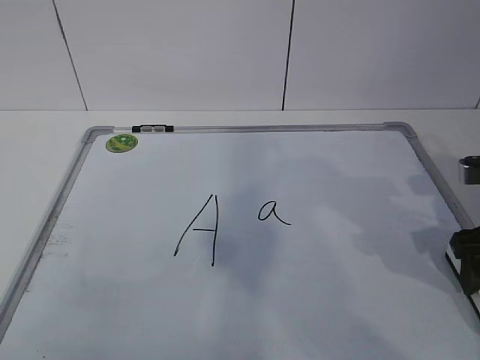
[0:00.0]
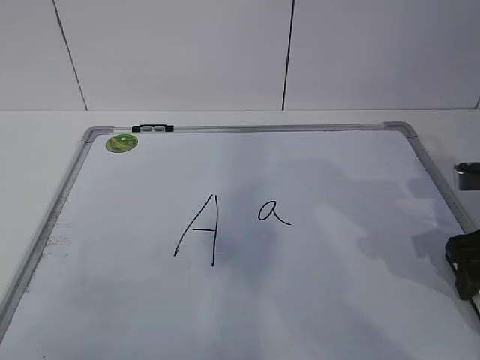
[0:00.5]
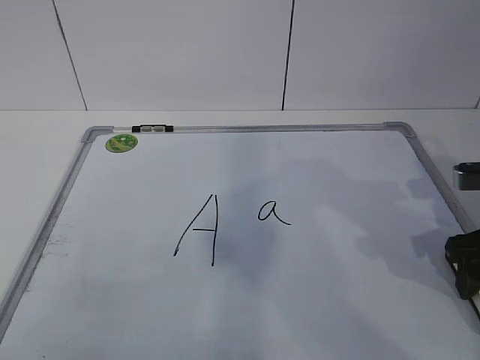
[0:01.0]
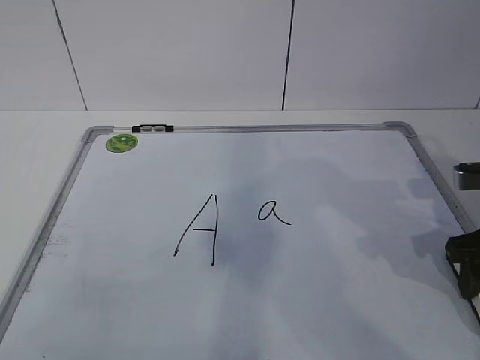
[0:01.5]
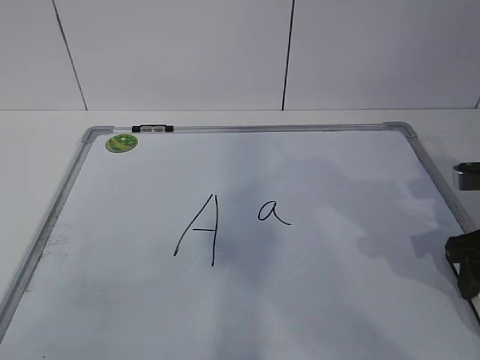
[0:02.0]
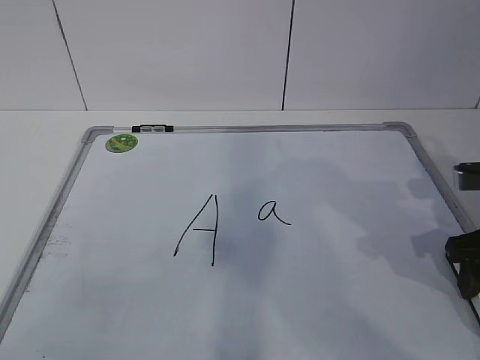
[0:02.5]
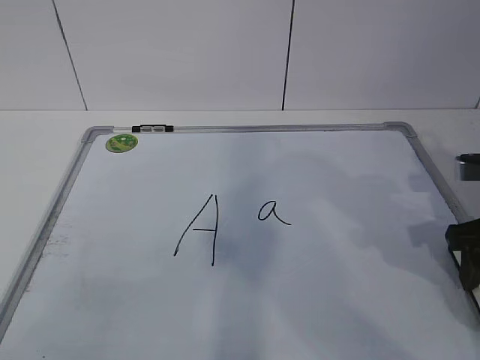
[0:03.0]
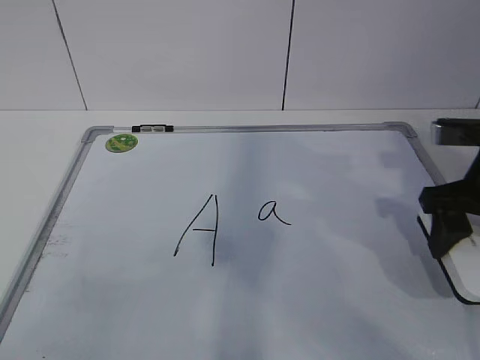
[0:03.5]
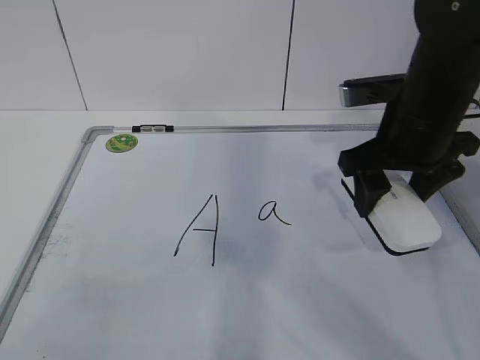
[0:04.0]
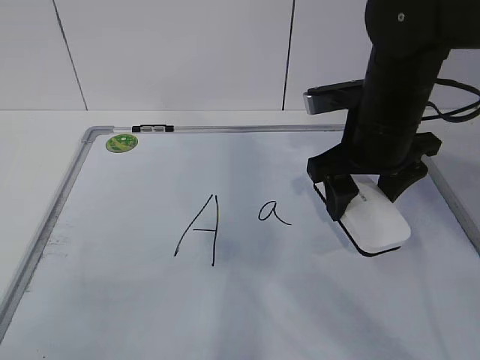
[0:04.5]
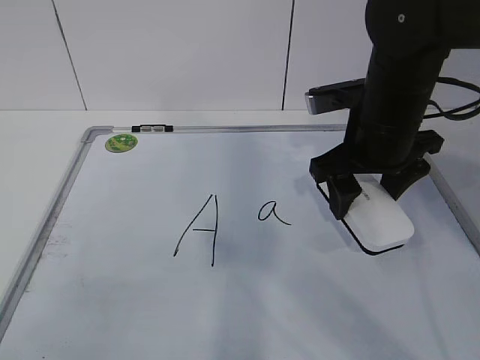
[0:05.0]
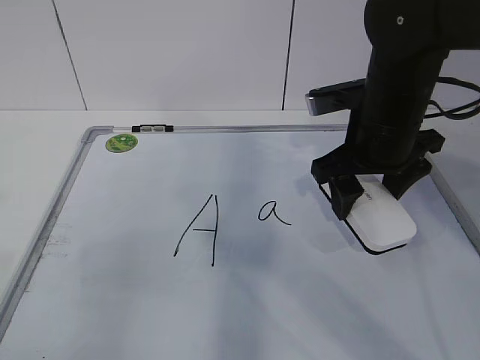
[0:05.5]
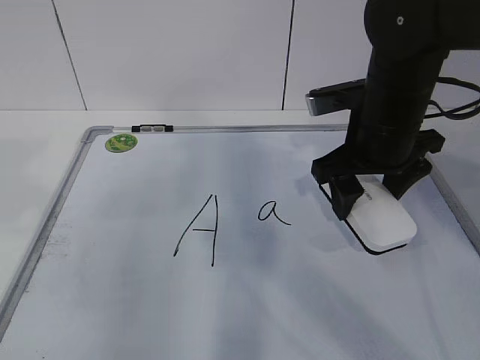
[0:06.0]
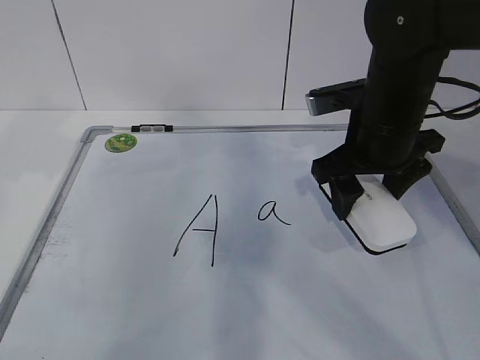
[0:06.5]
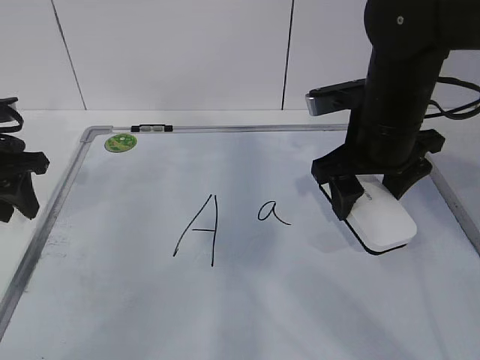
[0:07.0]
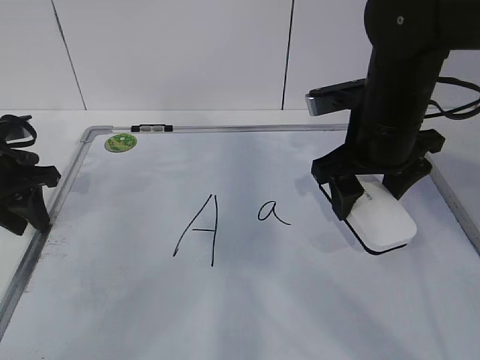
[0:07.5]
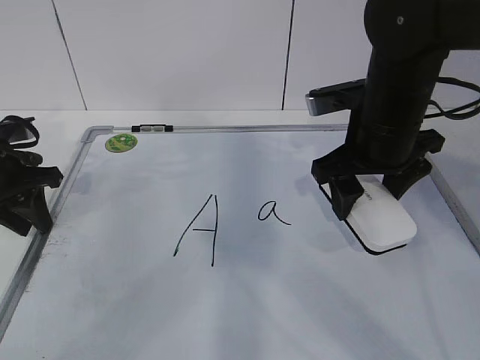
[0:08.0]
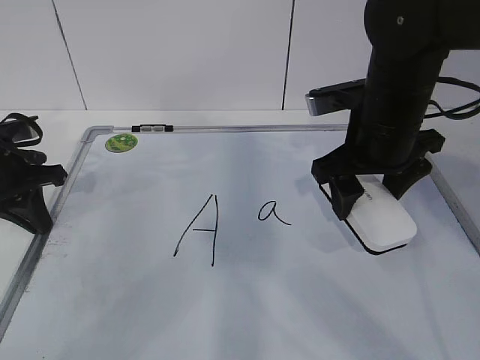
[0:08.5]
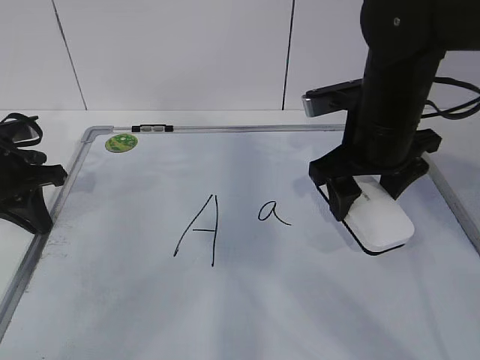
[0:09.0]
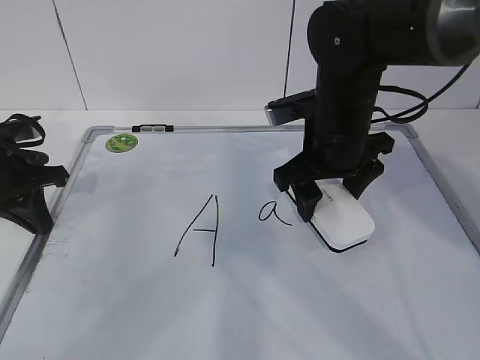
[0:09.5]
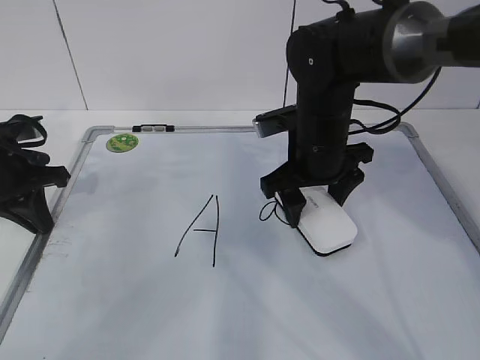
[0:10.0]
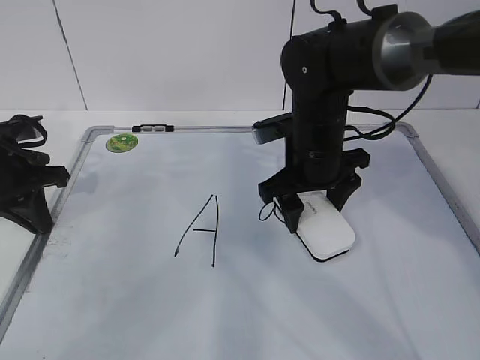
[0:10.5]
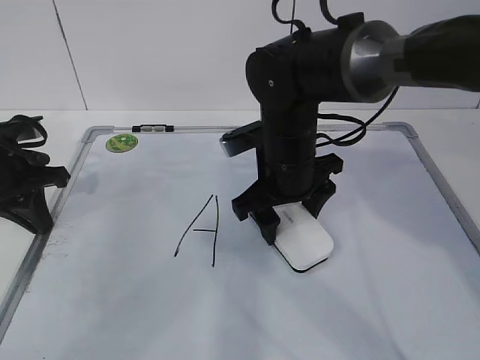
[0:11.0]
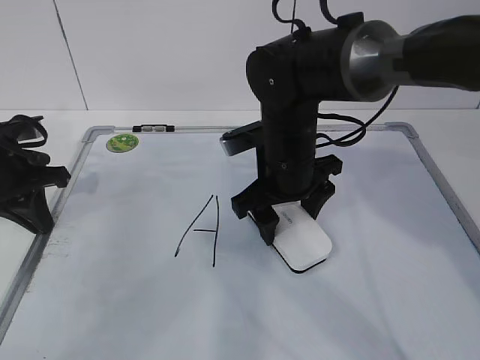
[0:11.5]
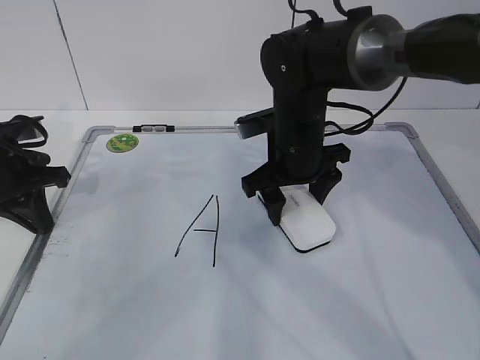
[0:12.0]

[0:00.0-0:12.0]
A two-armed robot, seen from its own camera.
Task of the whole recording: pick up the eraser on the blackboard and erase the letter "a".
Step, 0:00.5 to 0:05.5: Hold the drawing board steady with your left hand.
Step, 0:06.5 to 0:09.5: Erase the letter a with your right hand.
0:02.0 to 0:04.0: The right gripper travels to the left, upward and forward by roughly 15 cm.
0:06.0 to 0:08.0: The left gripper heads forward and downward, covering approximately 25 cm.
0:08.0 to 0:10.0: The left gripper closes up. The right gripper ends up roughly 10 cm from where it was.
0:10.0 to 0:12.0: The grippers stay close to where they were, moving slightly.

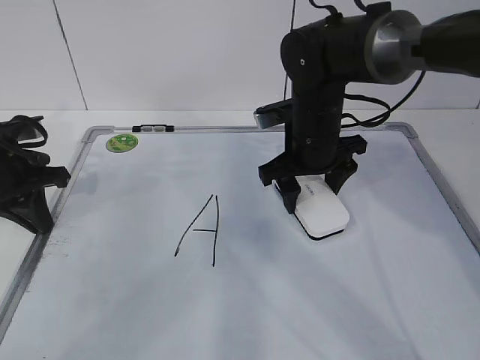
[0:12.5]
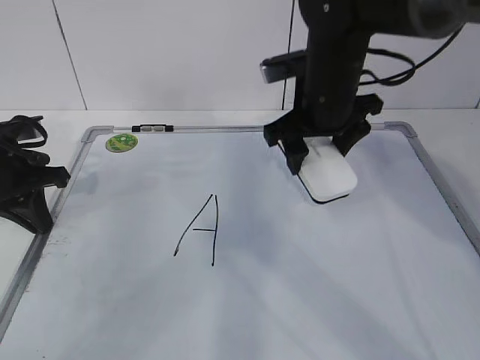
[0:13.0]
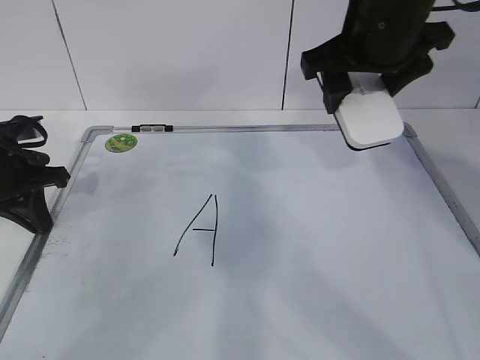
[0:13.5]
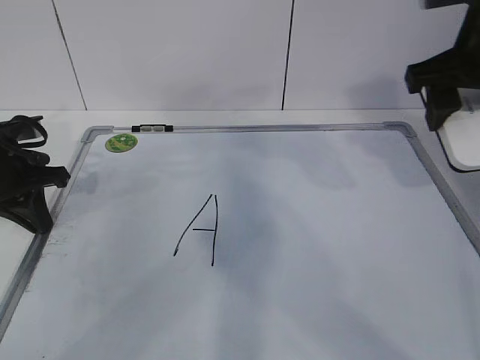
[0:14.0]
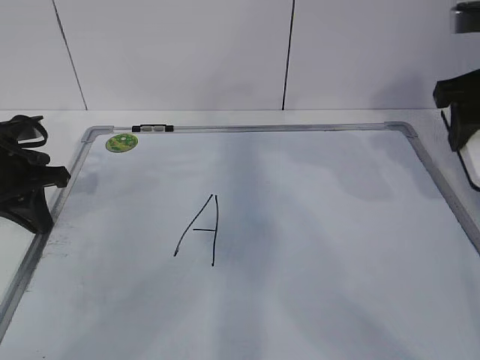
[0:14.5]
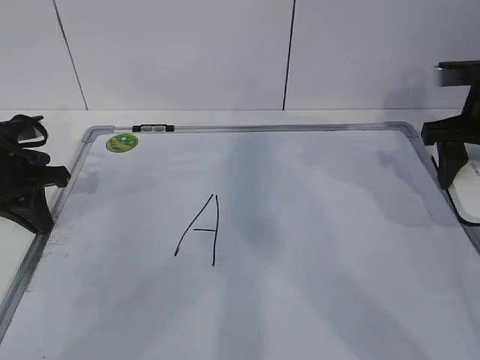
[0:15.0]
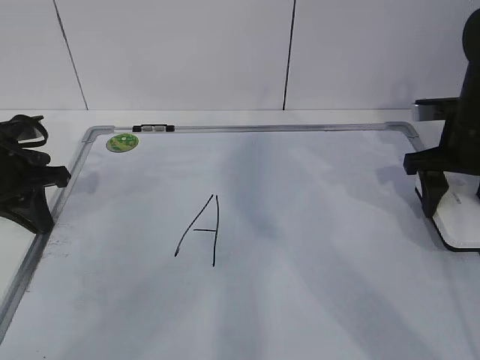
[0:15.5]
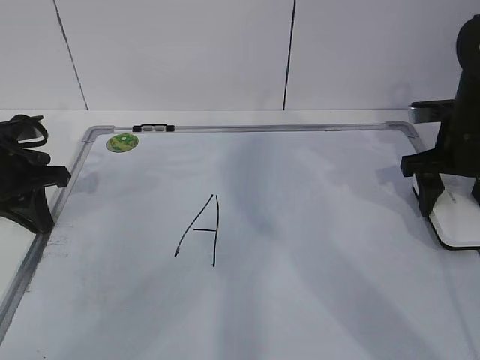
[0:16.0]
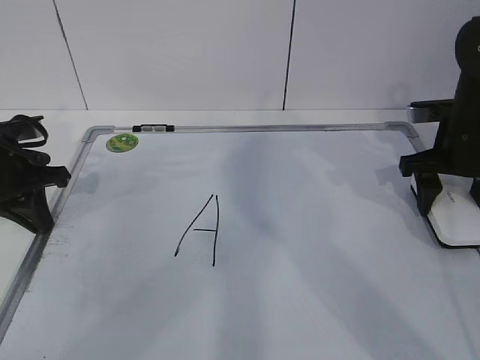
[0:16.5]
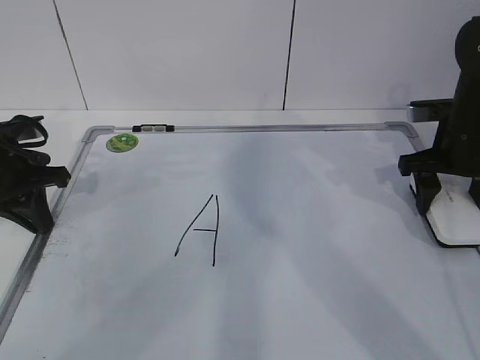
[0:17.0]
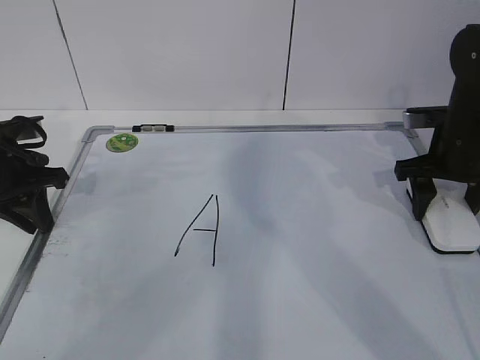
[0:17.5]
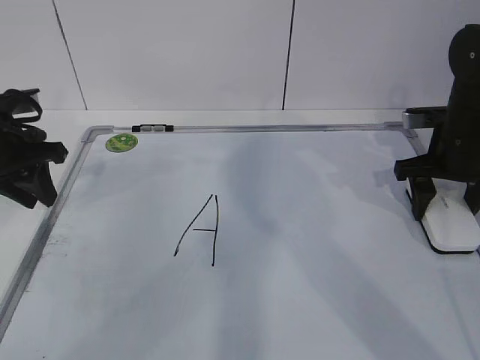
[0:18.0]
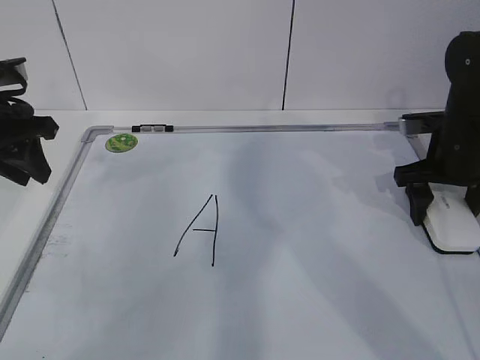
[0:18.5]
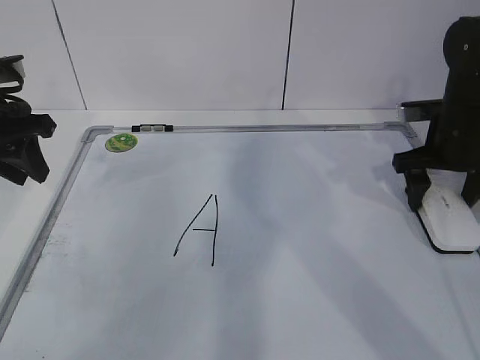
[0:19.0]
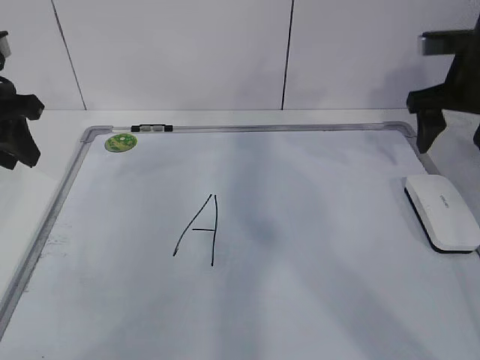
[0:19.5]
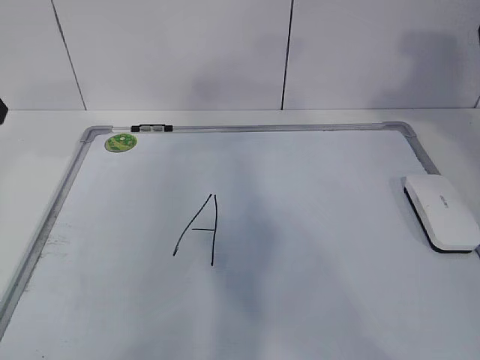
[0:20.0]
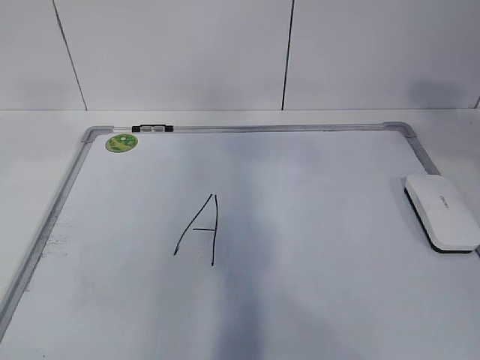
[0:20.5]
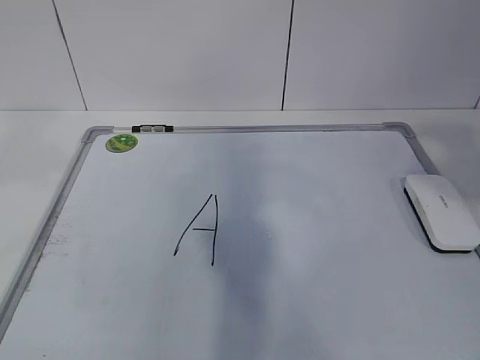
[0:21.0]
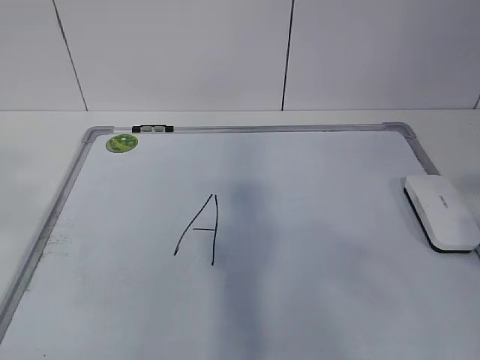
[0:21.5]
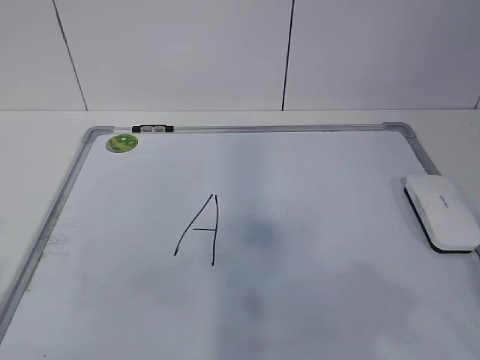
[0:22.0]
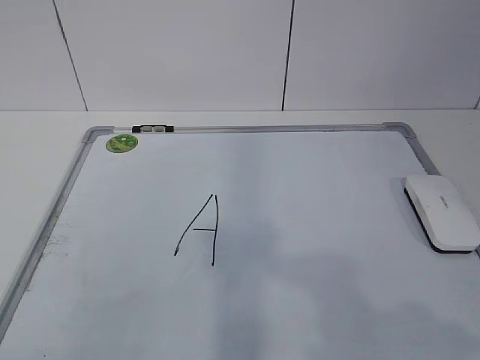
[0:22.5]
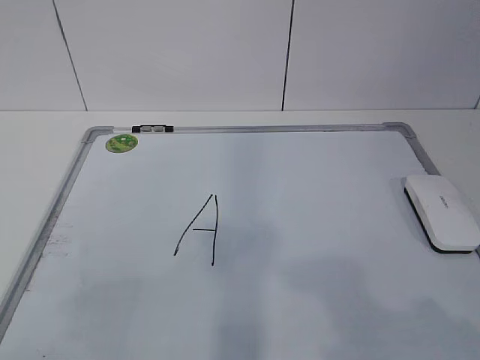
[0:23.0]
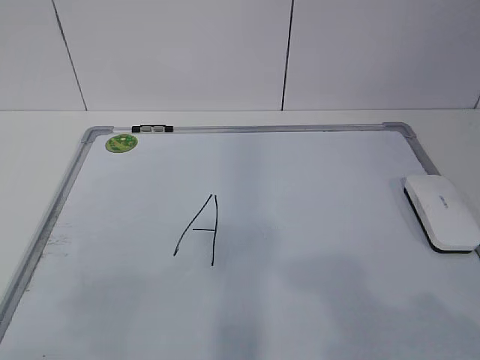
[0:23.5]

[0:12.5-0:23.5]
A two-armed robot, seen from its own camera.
Task of the whole recording: pick up the eraser on the blackboard and erase the letter "a".
Step, 0:13.5 to 0:14.0: Put down the eraser with your right hand.
0:12.5 to 0:14.5: The right gripper goes approximately 20 cm to the right, upward and backward.
0:14.5 to 0:16.0: The right gripper shifts approximately 10 cm downward.
0:16.0 to 0:18.0: The left gripper opens.
0:18.0 to 0:20.0: The left gripper is displaced upward and backward by roughly 15 cm; the right gripper goes roughly 20 cm upward, and opens up.
0:20.0 to 0:21.5: The right gripper heads backward, covering approximately 30 cm, and closes up. The left gripper heads backward and upward, covering about 30 cm.
0:21.5 to 0:23.5: Both grippers move downward, some 15 cm.

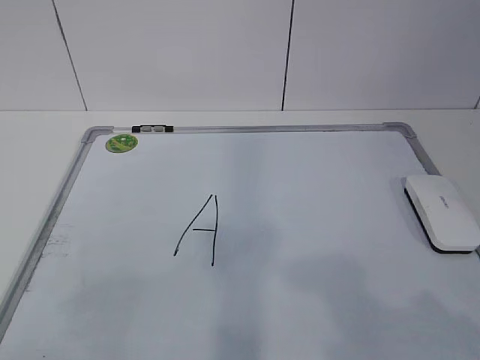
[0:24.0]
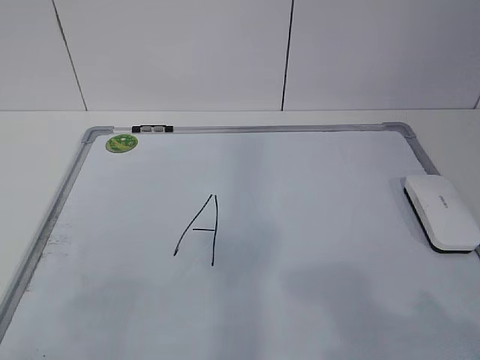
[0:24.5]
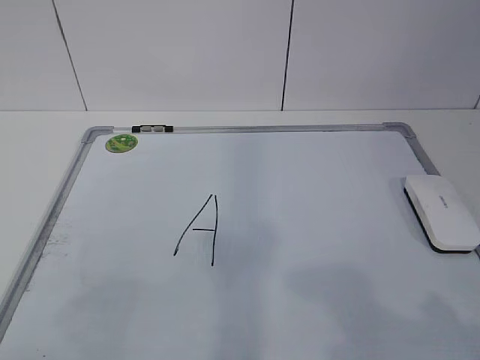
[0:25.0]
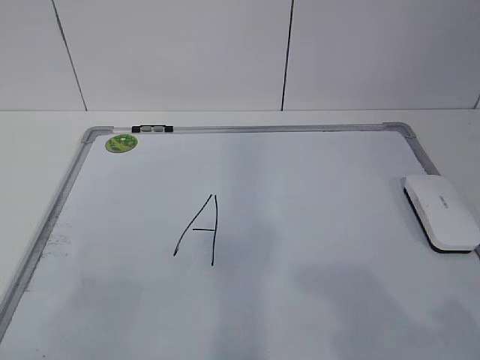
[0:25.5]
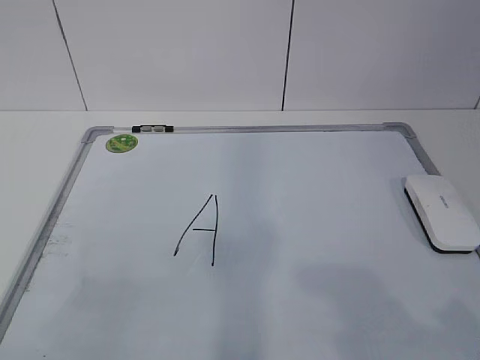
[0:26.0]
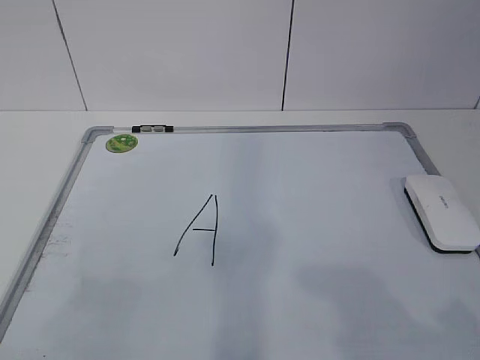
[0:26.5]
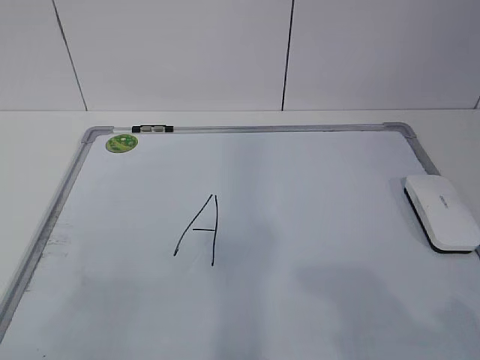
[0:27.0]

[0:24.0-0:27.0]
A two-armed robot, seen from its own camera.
Task of the whole recording: pick up the eraser on the blackboard and erase the letter "a".
0:25.5 to 0:27.0: Both grippers stay about where they are.
